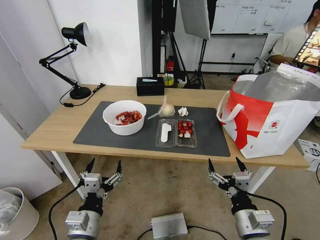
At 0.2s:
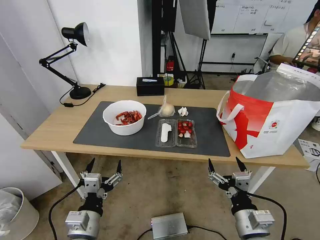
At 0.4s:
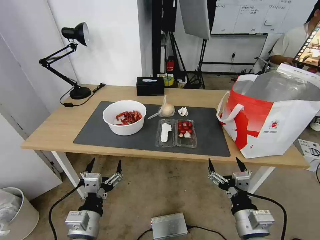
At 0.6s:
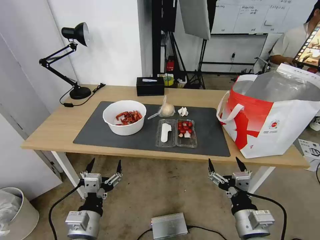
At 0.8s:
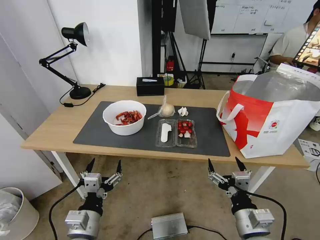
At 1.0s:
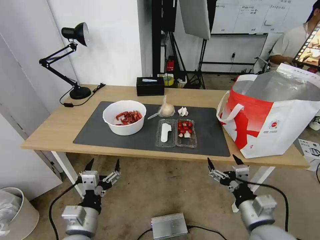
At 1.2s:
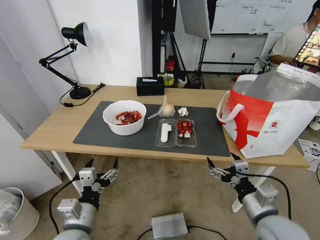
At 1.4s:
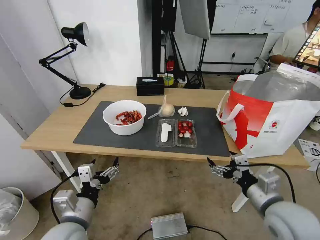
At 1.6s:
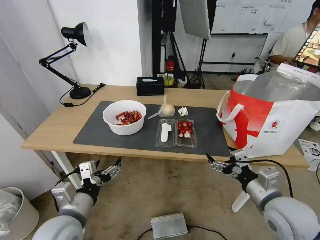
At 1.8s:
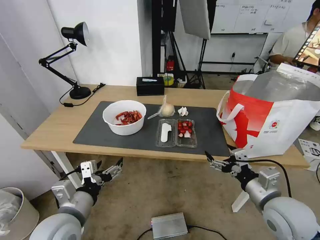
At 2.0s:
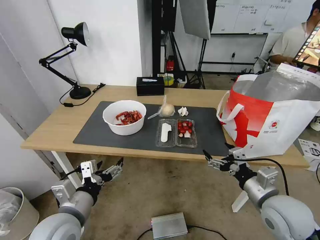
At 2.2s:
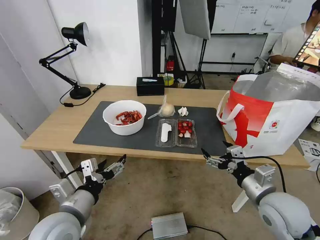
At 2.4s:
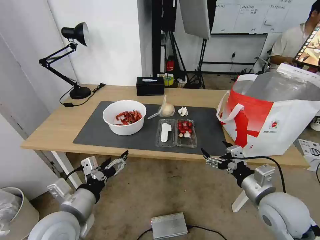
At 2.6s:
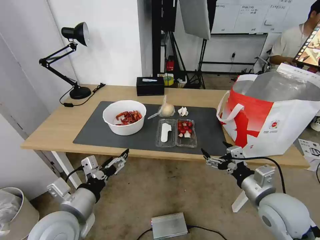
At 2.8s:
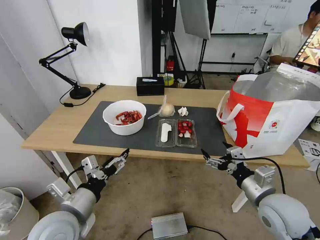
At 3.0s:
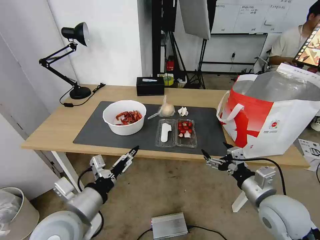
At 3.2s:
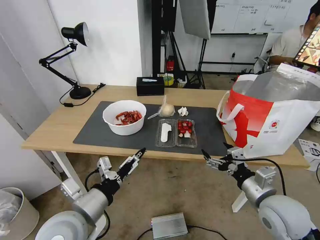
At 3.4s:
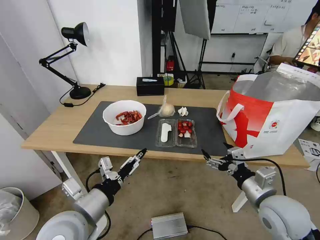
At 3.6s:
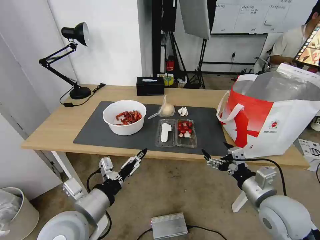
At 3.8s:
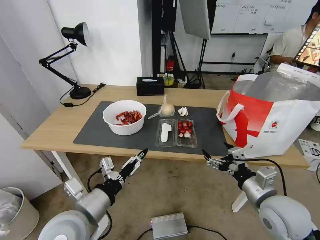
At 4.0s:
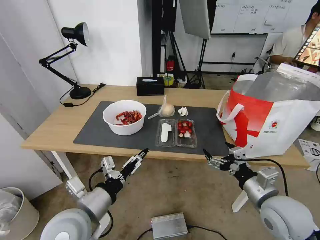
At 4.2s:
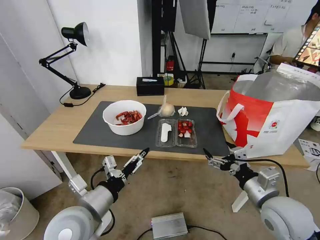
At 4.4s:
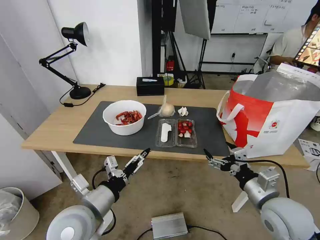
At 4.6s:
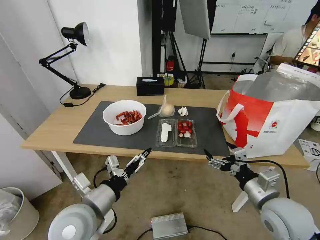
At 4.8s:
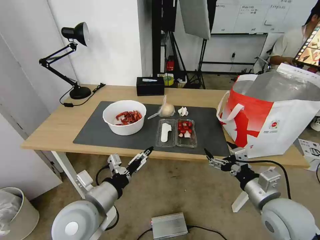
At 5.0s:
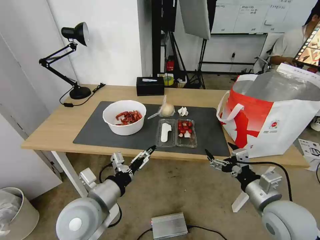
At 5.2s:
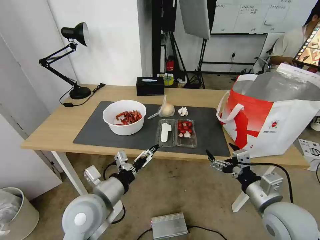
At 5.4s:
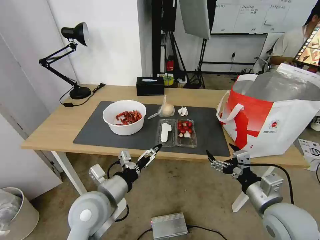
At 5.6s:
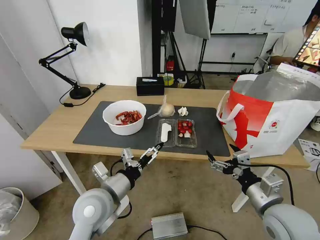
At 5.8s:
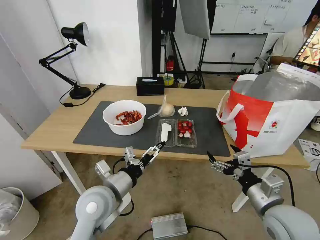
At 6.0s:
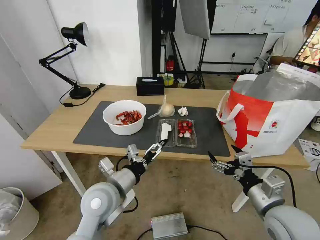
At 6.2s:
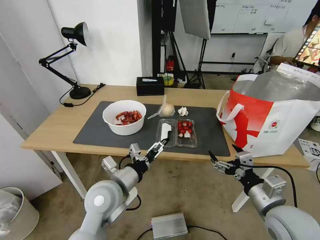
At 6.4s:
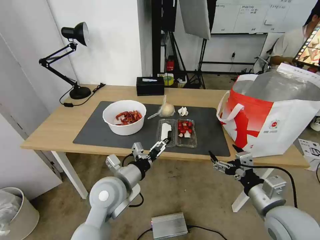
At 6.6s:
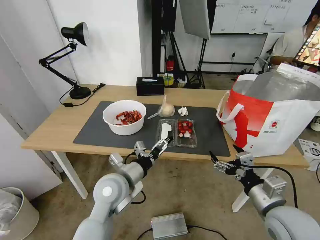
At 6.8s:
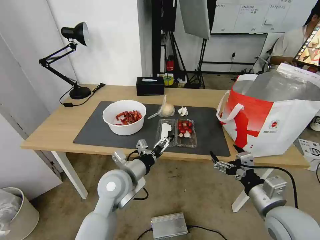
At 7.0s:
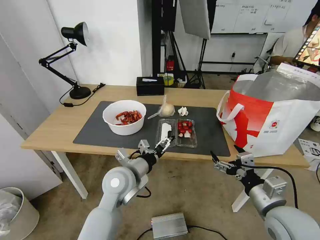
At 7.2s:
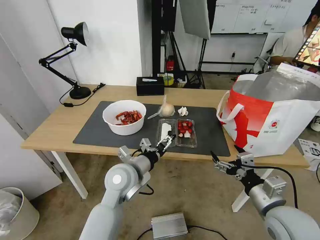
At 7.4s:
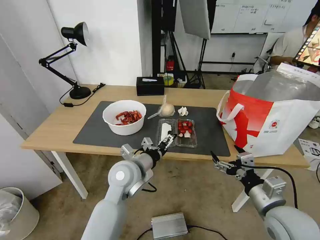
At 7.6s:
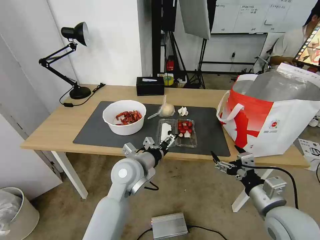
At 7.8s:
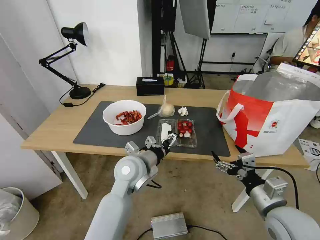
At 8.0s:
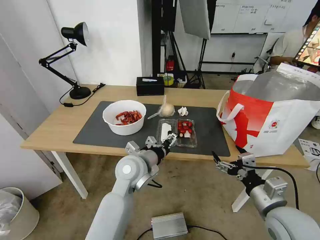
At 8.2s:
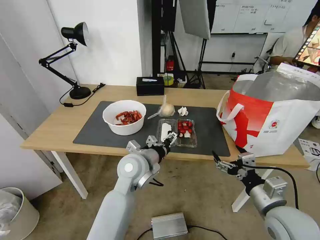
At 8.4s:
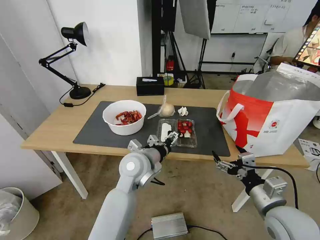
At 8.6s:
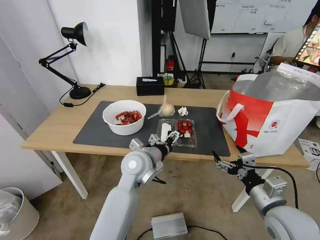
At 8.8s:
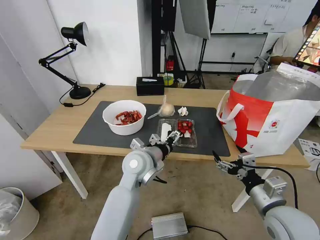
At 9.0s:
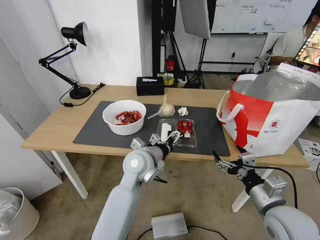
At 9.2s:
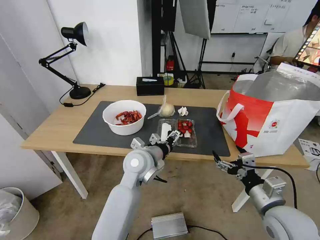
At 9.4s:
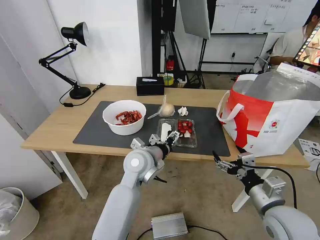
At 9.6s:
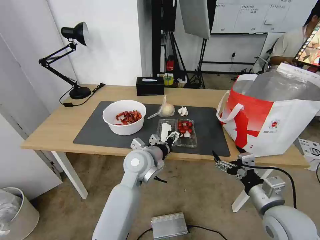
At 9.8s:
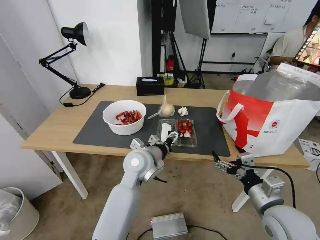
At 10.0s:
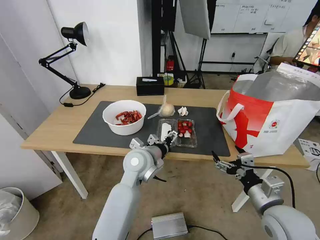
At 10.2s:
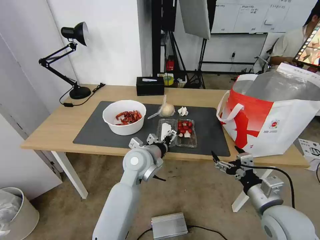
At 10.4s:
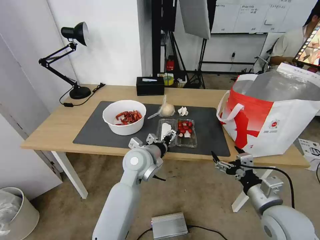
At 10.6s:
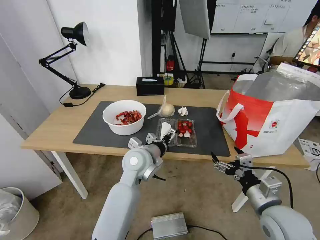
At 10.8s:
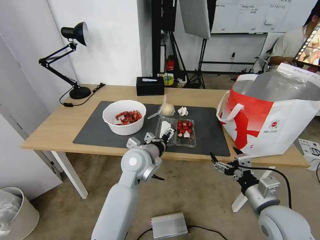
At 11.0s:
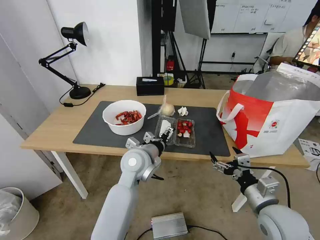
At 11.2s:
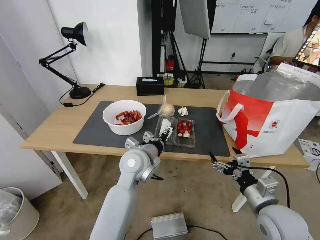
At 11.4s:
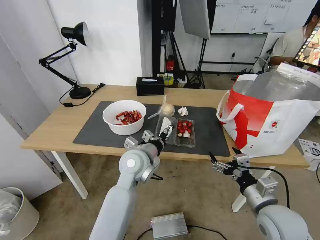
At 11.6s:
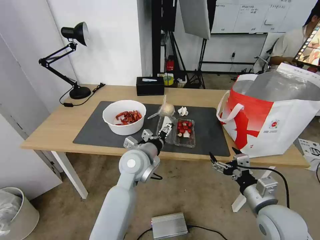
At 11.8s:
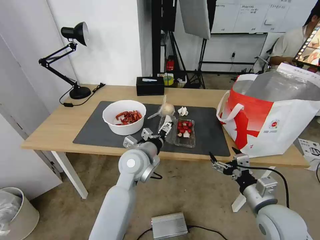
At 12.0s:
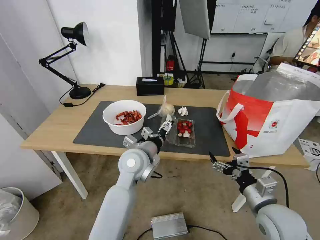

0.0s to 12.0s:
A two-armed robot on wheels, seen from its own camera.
Task of the whole recording: Pick up the trash from the table and place it into the takeout bag.
3.0s to 4.4s: There are only small adjustments of the grippers.
4.4s to 6.0s: The left gripper heads forward, covering roughly 5 cm.
6.0s to 7.6s: The left gripper moves forward and to the right, some 10 cm.
7.6s to 9.0s: The grippers stay close to where they were, moving slightly.
9.0s to 10.4s: Both grippers stay about where they are.
10.4s to 12.0s: There are only small adjustments of the grippers.

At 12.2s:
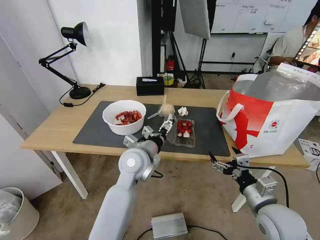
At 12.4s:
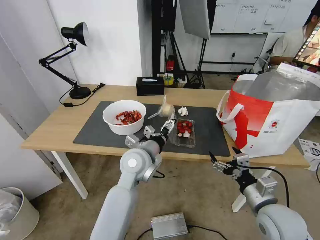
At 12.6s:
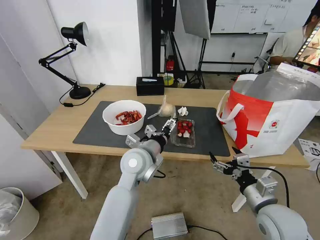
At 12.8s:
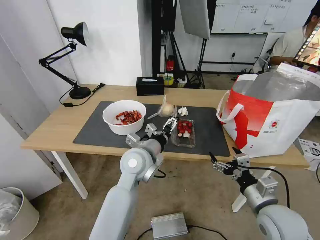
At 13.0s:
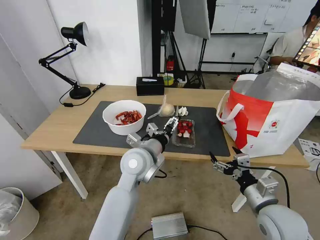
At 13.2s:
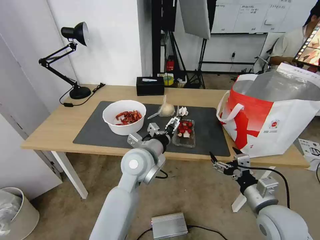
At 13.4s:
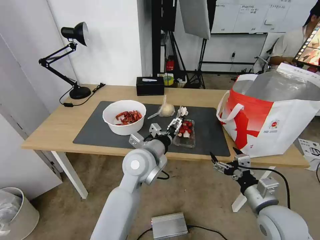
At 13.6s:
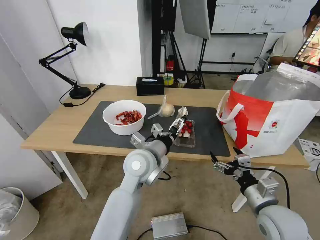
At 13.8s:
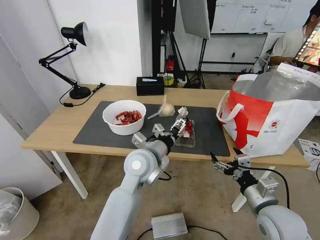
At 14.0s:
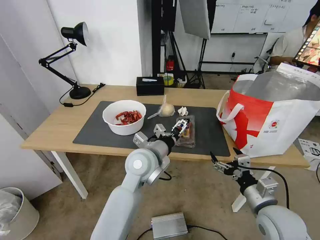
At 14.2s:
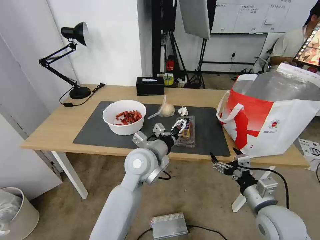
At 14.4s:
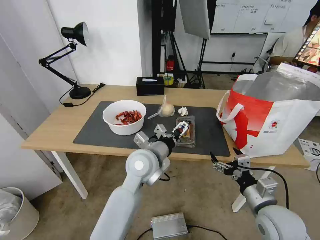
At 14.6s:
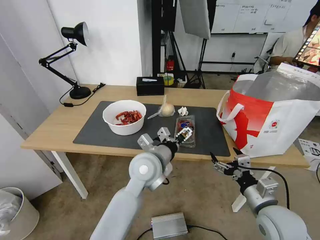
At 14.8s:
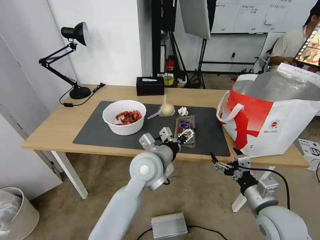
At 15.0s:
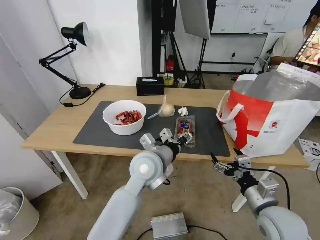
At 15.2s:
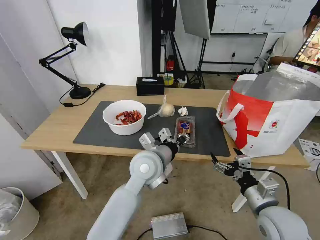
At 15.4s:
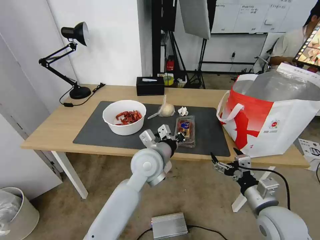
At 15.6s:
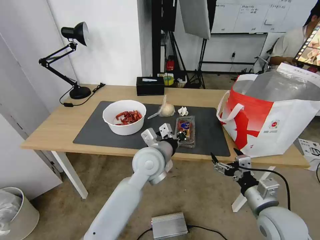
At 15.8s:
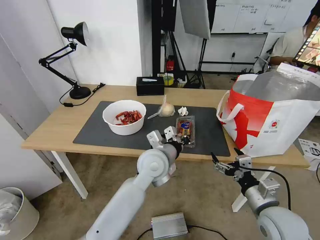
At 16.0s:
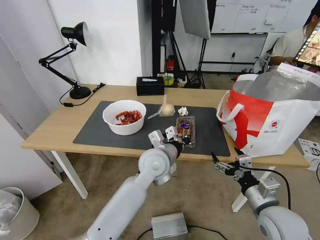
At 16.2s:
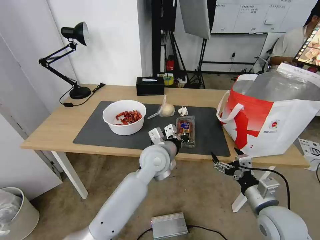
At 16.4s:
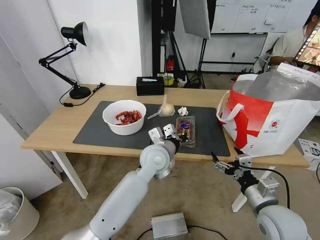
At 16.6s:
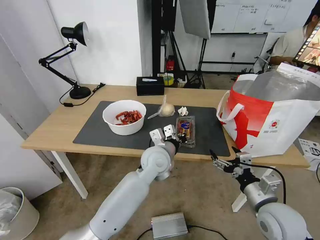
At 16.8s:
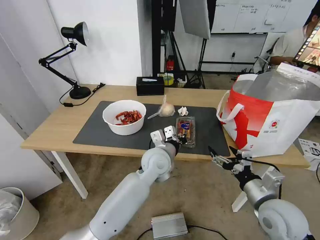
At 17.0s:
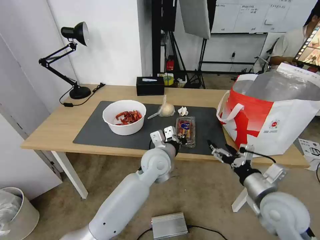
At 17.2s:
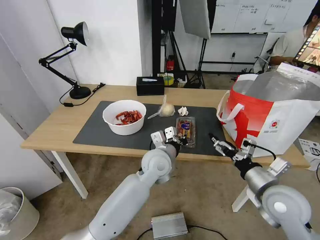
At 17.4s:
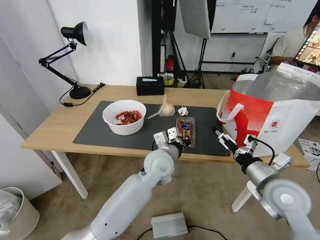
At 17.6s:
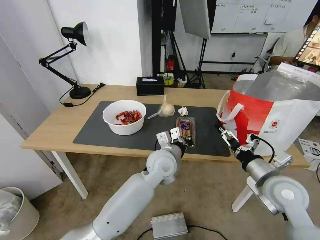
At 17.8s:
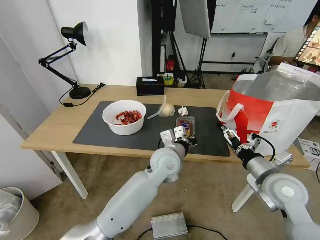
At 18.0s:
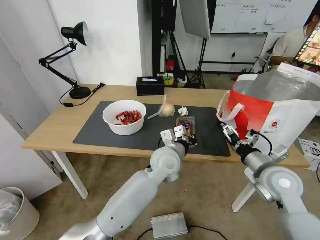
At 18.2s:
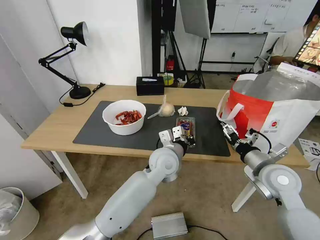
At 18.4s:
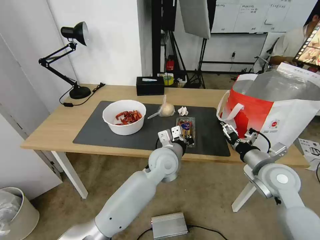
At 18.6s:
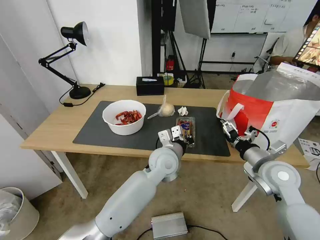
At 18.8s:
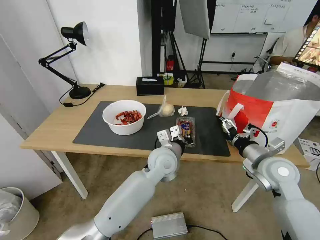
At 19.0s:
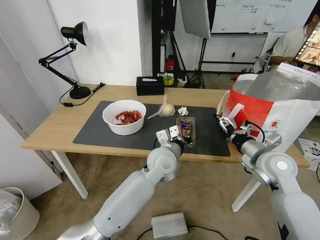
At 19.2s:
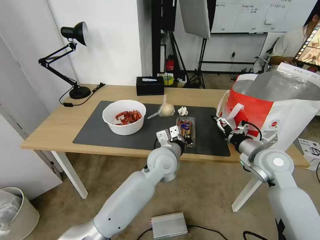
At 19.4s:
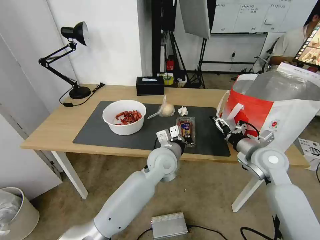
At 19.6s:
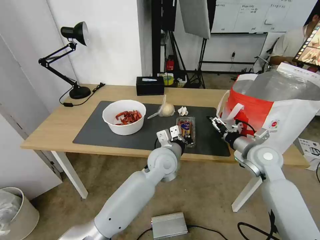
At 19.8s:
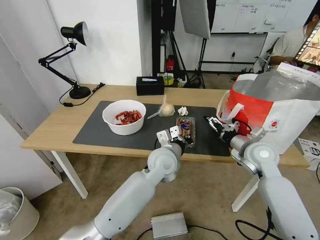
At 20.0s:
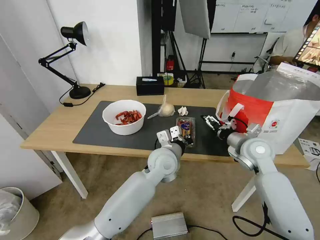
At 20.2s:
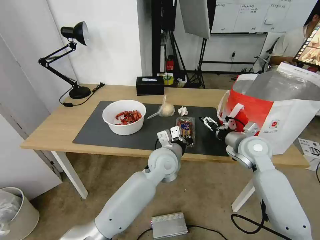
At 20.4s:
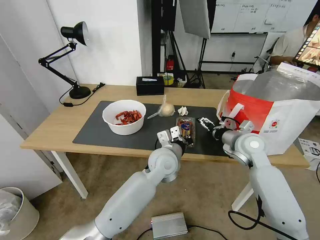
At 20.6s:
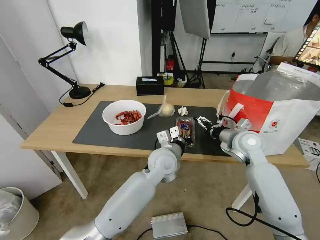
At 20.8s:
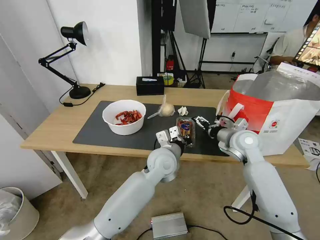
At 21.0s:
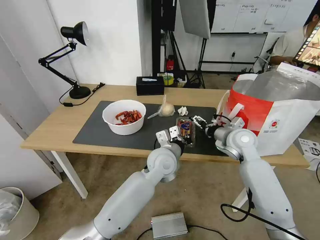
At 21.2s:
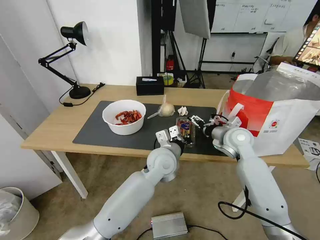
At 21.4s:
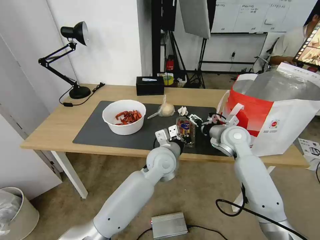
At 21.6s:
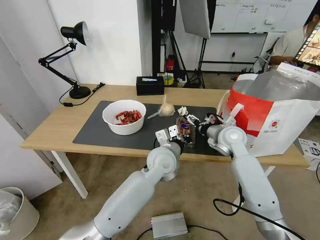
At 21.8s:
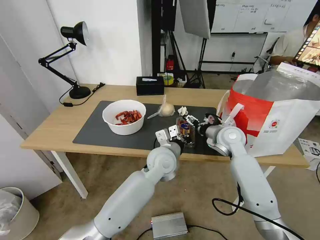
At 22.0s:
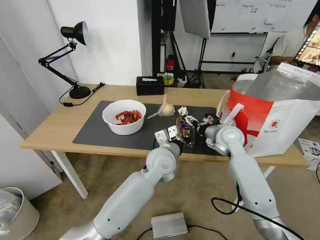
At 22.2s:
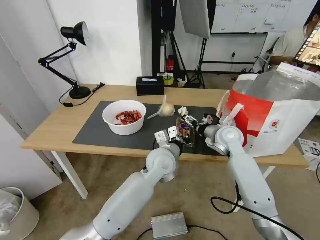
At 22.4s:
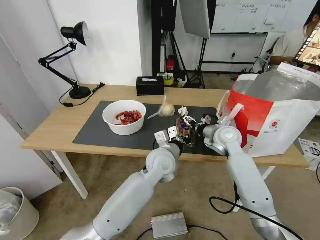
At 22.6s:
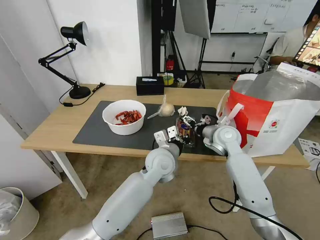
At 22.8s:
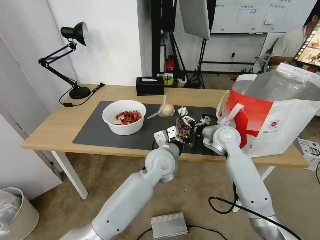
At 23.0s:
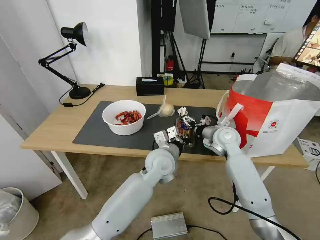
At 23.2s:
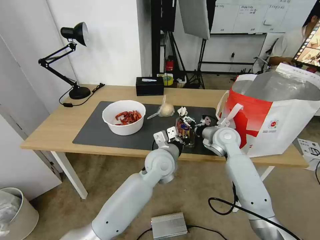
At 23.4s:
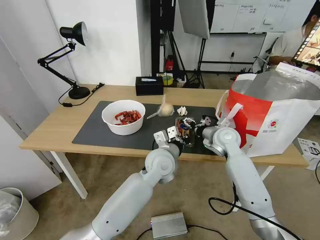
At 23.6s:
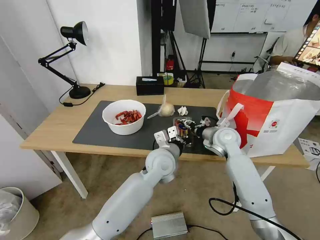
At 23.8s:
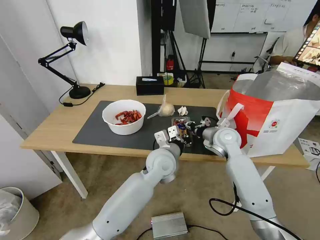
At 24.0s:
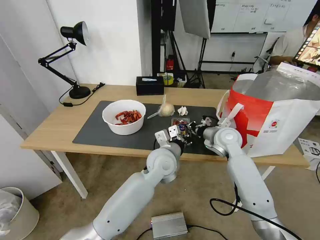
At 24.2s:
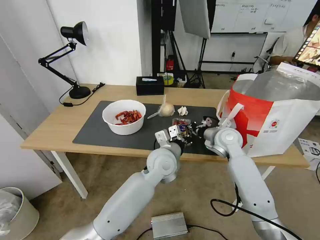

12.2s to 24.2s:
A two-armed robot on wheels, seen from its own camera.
Task of the whole recording: Pick up the trash from the table and place it into the takeout bag.
12.2s to 13.8s: The grippers make only small movements.
13.8s to 15.2s: The left gripper closes up.
15.2s to 16.6s: The left gripper moves about 5 cm.
16.6s to 18.2s: The right gripper shifts roughly 10 cm forward.
18.2s to 19.8s: The right gripper goes about 10 cm forward.
19.8s to 21.2s: The right gripper shifts roughly 10 cm forward and to the left.
21.2s to 22.6s: The grippers stay close to where they were, moving slightly.
22.6s to 24.2s: The right gripper closes up.
